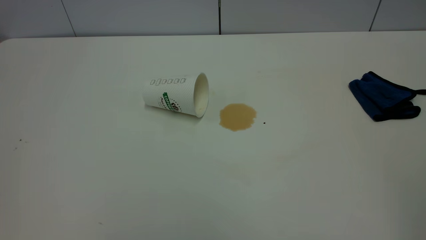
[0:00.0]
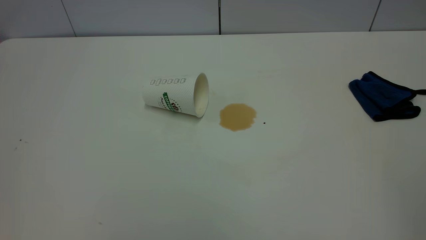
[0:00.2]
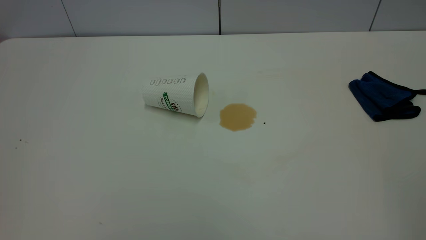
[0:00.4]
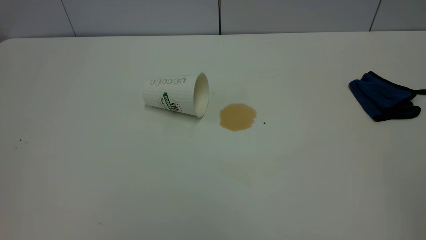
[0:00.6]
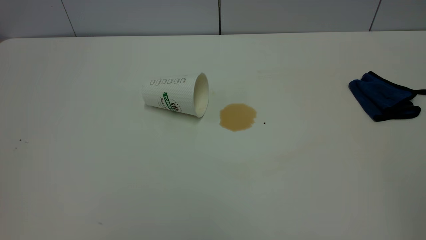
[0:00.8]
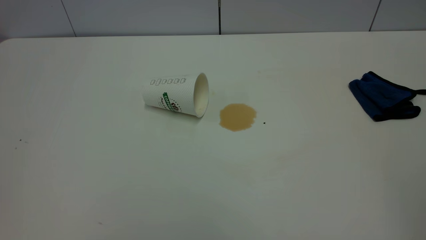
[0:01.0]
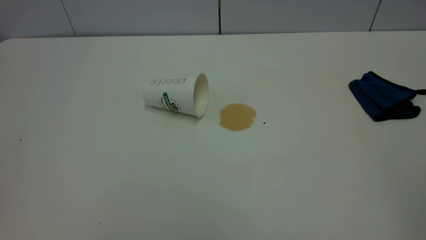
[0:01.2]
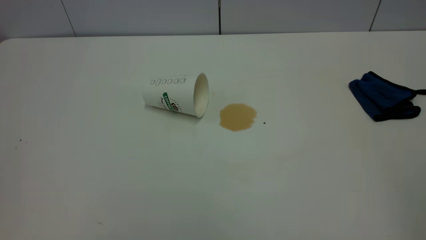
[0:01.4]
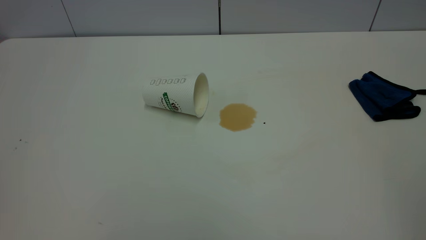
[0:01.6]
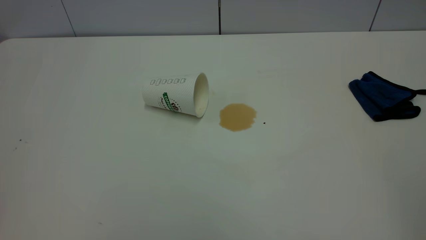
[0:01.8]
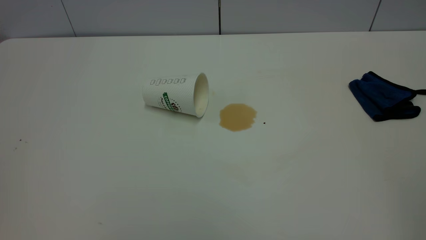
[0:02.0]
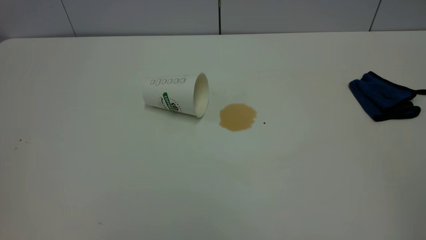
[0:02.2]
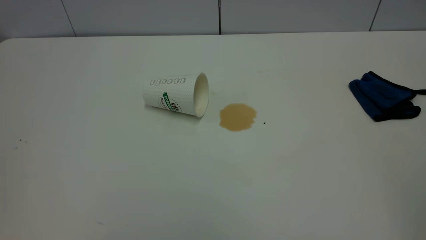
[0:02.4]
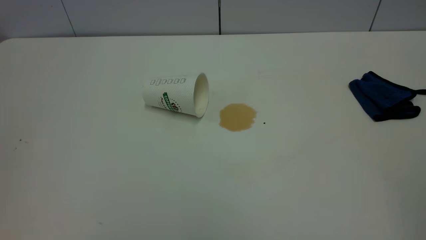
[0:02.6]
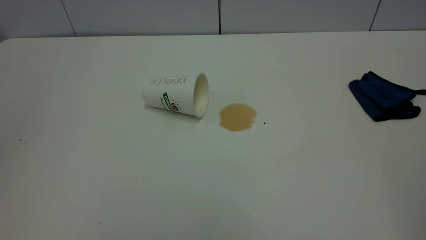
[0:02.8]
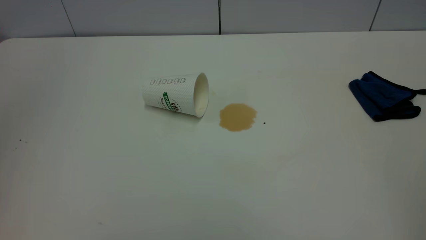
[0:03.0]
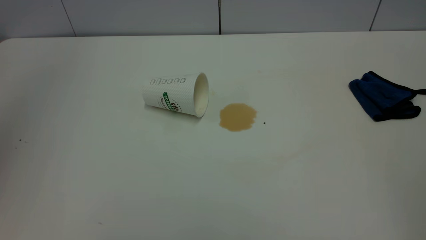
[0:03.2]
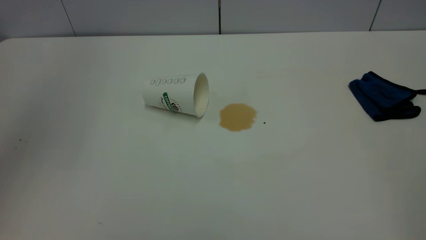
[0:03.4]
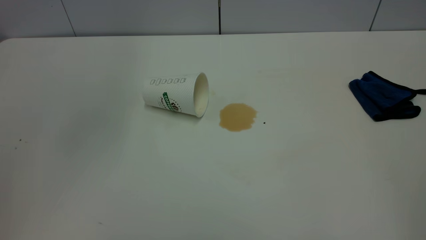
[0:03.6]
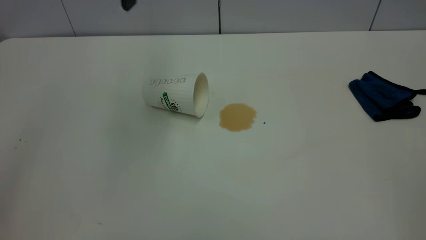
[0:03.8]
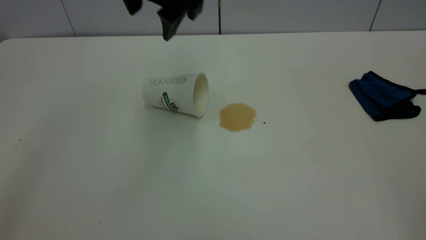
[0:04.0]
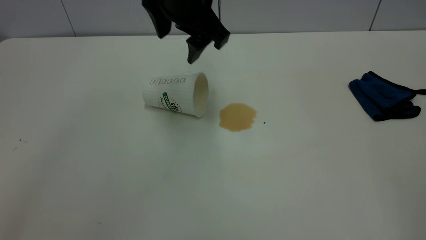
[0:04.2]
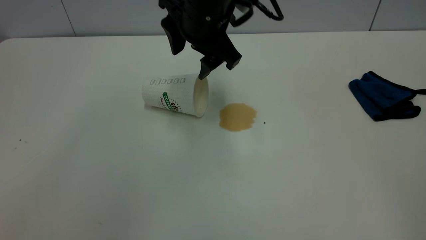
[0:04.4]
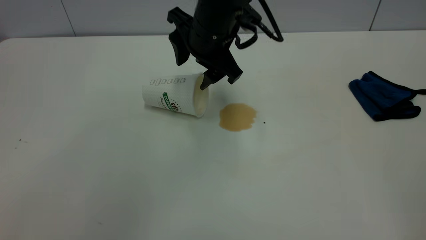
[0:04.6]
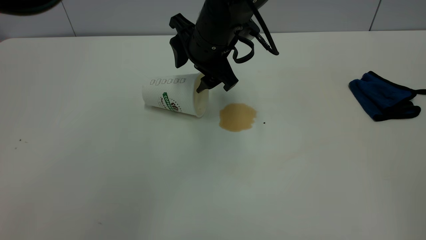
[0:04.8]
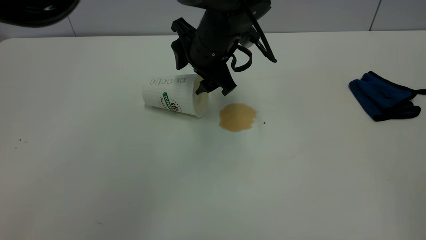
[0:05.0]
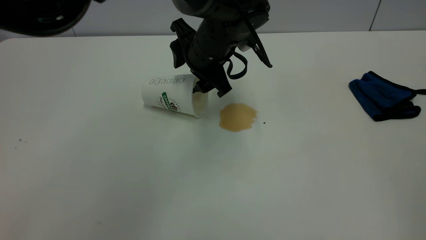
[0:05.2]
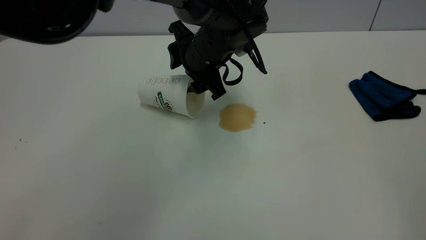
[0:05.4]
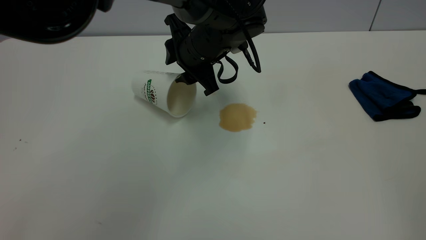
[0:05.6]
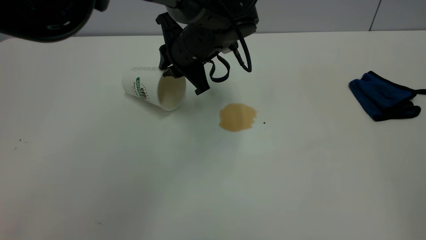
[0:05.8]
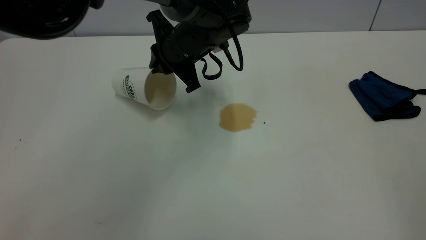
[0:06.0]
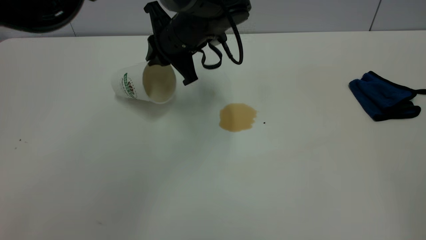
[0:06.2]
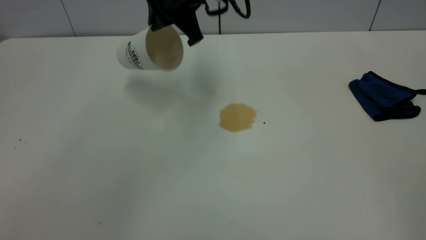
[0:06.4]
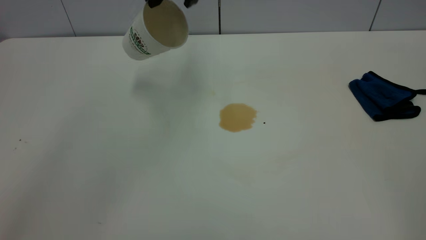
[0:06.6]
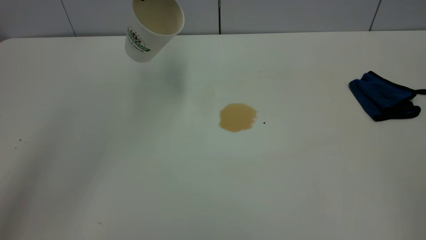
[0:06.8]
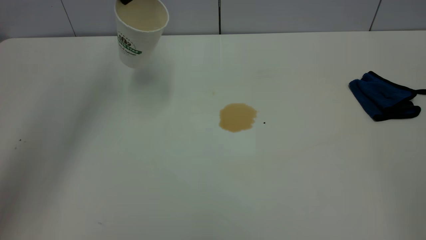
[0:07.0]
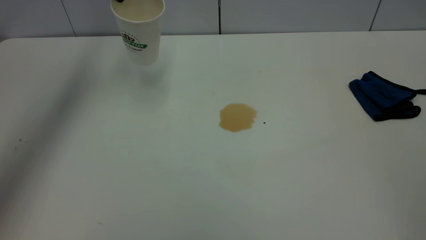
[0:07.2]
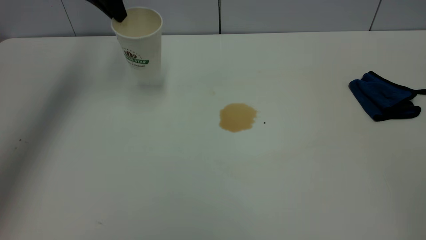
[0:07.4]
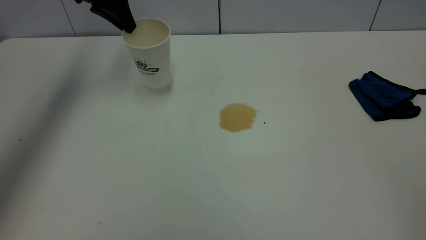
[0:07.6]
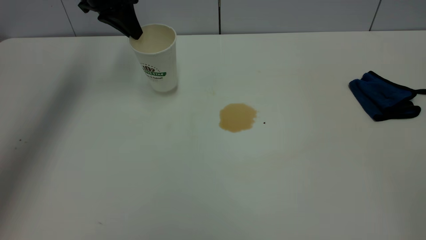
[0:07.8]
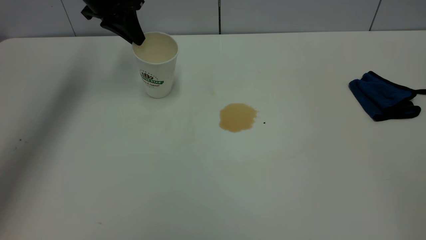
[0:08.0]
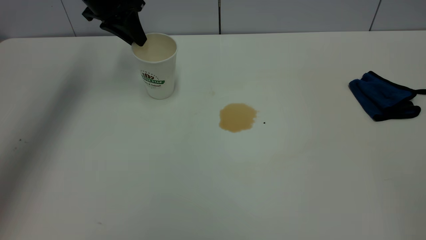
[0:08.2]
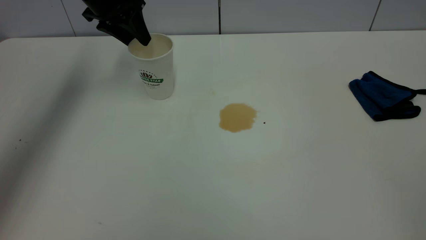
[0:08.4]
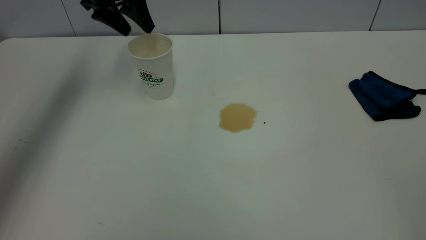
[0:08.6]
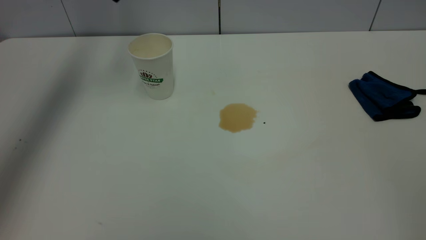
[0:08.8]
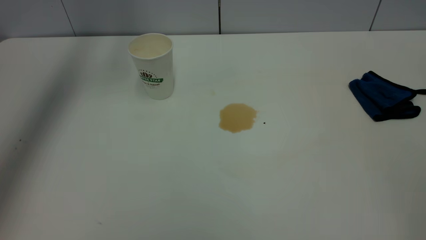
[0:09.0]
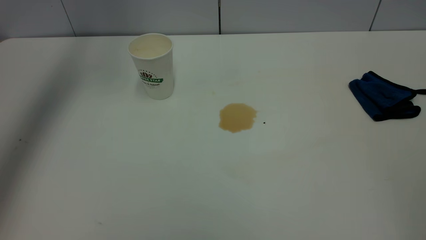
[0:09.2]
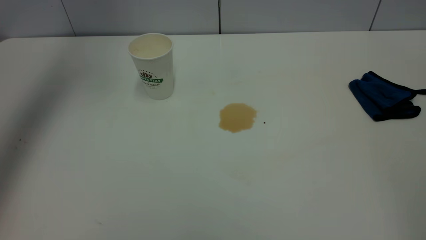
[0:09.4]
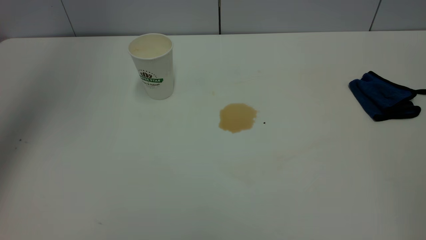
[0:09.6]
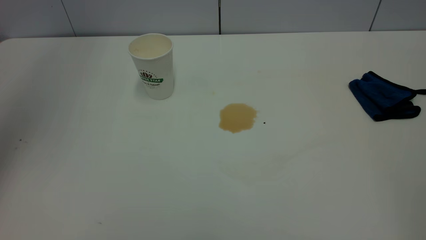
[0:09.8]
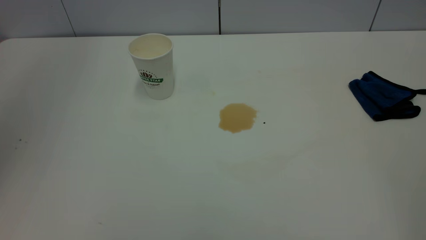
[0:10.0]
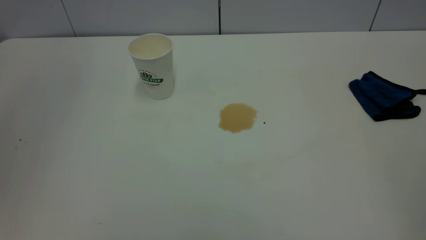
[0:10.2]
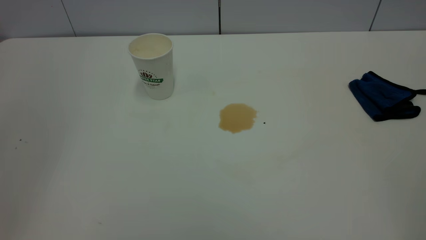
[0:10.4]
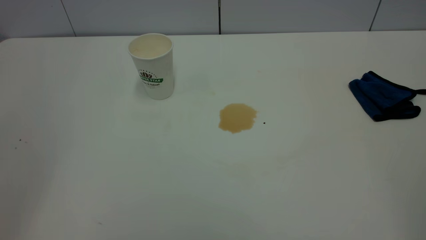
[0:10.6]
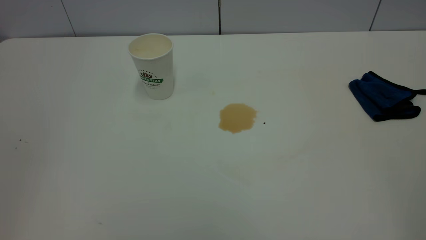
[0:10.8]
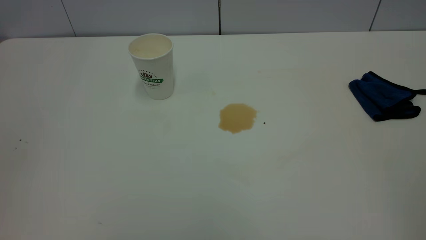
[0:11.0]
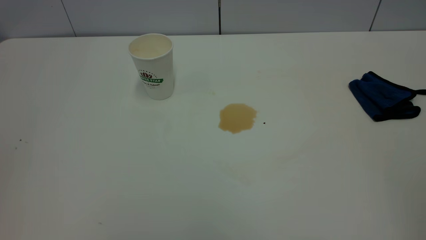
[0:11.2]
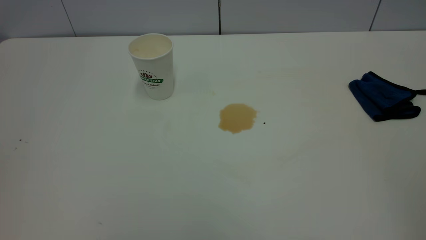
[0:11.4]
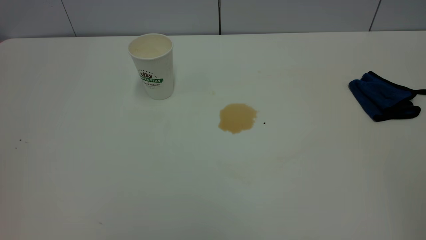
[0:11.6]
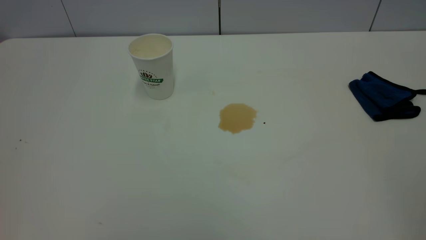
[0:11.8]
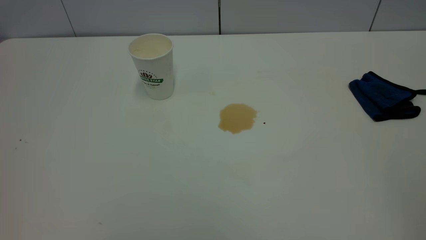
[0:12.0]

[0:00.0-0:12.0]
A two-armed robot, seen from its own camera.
Task of the whole recording: the left gripper pick up the fallen cup and place it upright, the right gripper grasp the blue rag and wipe the tea stain on the table, the right gripper put the blue rag back in its original position.
Step, 0:00.0 to 0:08.4: Stand the paper cup upright.
0:00.0 to 0:01.6: The two grippers keep their place.
0:03.0 to 0:04.4: The left gripper heads to the right, downward and forward, covering about 40 cm.
0:04.4 to 0:06.0: The left gripper shifts approximately 5 cm downward, and closes its fingers.
0:06.0 to 0:07.6: The left gripper is displaced to the left, upward and forward by some 25 cm.
0:07.6 to 0:09.0: The left gripper moves upward, about 10 cm, and opens up.
0:09.0 to 0:10.4: The left gripper travels backward by about 35 cm, and closes its fingers.

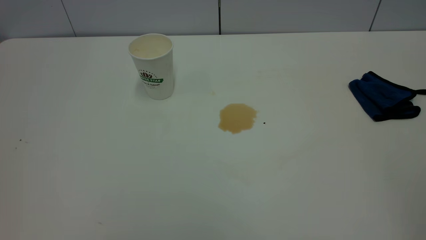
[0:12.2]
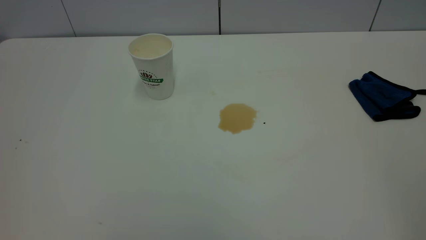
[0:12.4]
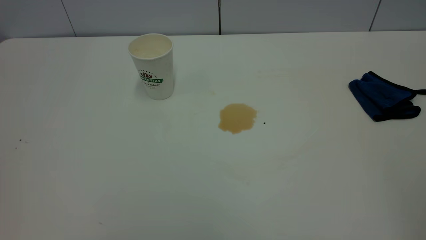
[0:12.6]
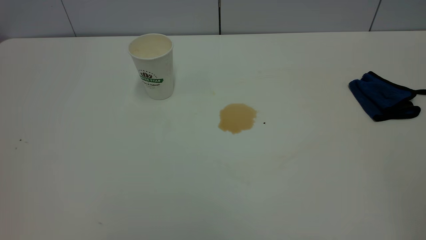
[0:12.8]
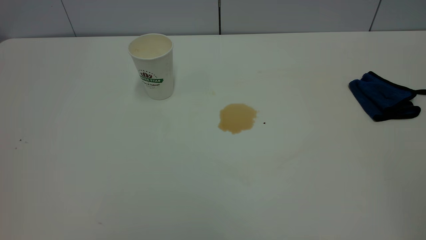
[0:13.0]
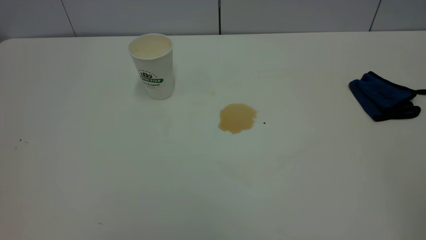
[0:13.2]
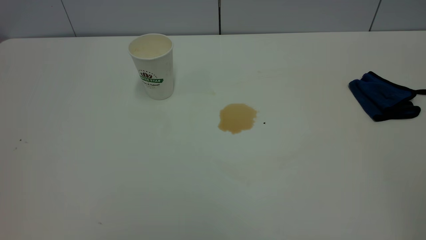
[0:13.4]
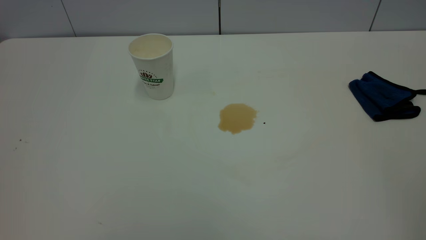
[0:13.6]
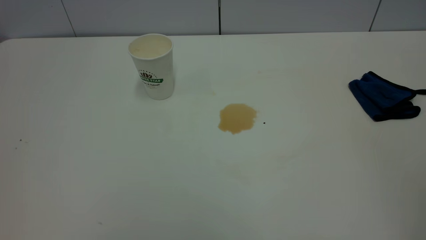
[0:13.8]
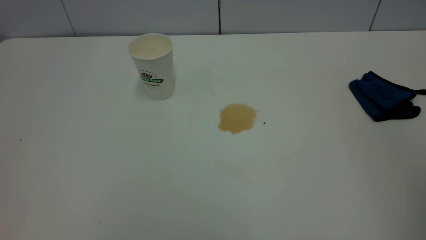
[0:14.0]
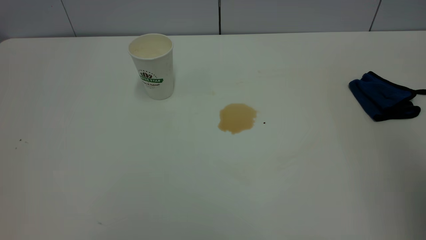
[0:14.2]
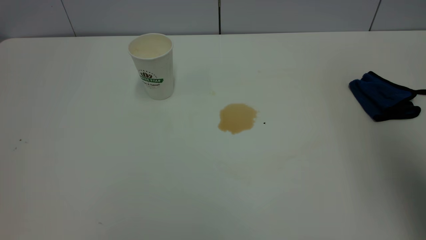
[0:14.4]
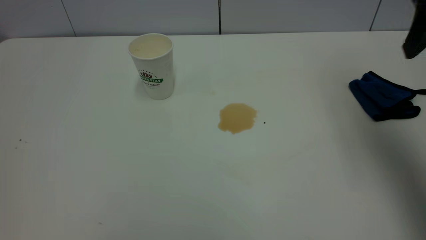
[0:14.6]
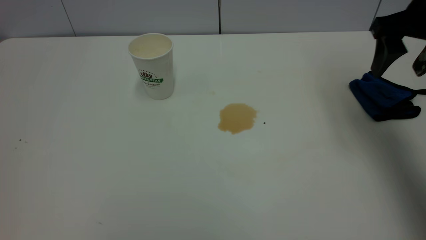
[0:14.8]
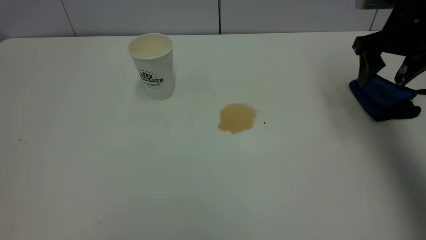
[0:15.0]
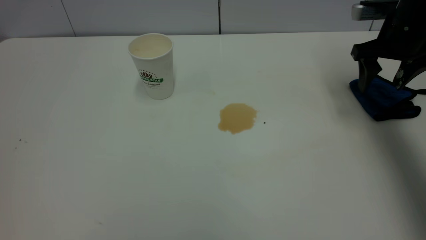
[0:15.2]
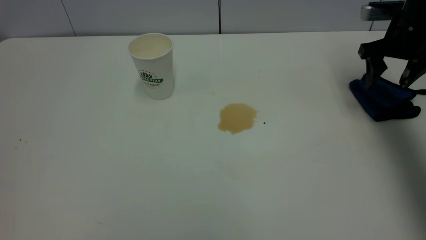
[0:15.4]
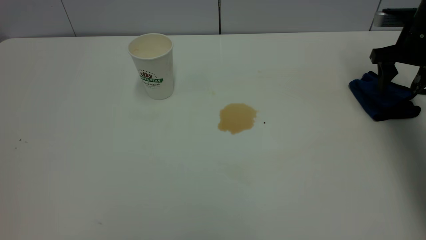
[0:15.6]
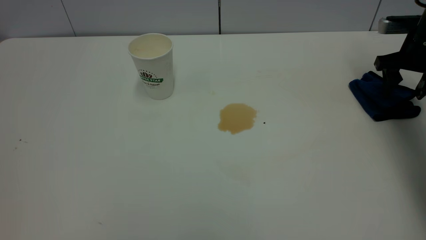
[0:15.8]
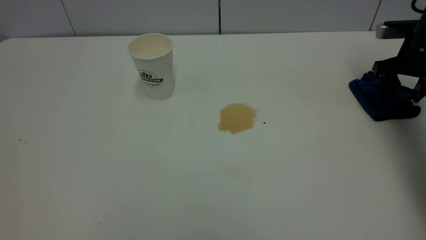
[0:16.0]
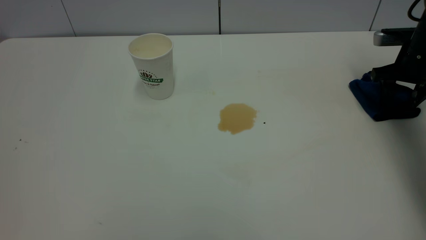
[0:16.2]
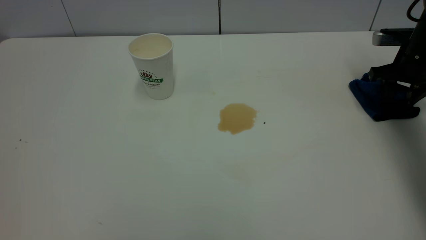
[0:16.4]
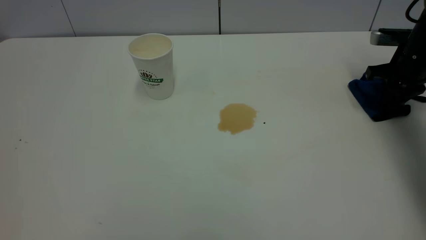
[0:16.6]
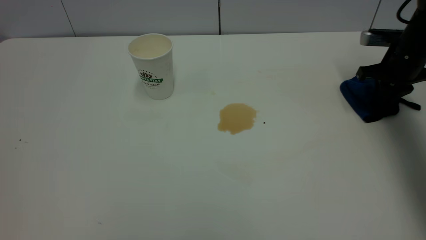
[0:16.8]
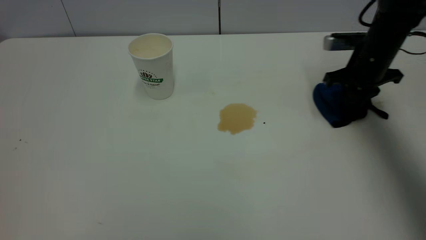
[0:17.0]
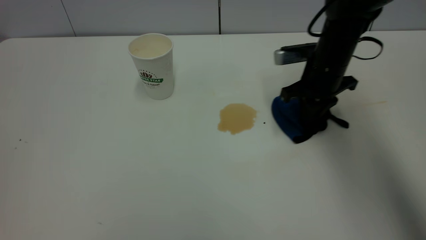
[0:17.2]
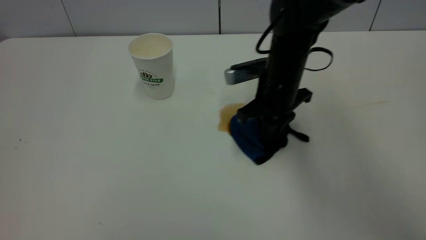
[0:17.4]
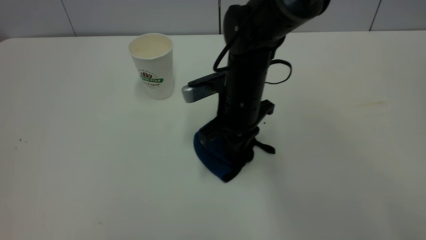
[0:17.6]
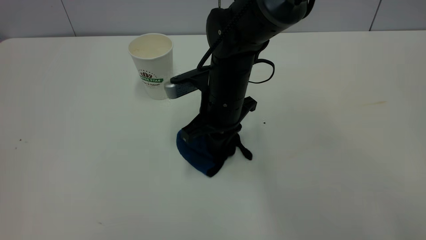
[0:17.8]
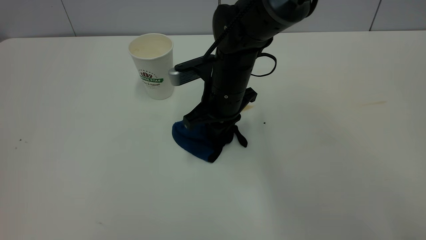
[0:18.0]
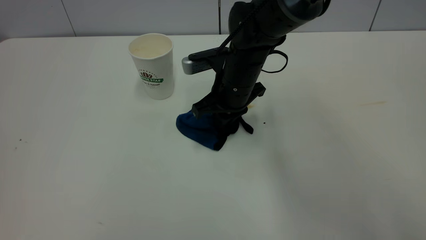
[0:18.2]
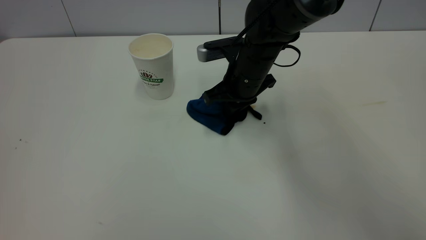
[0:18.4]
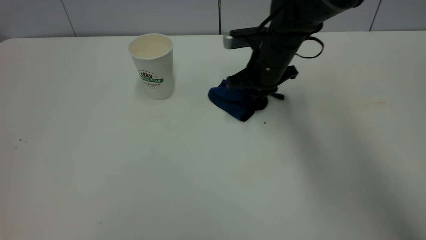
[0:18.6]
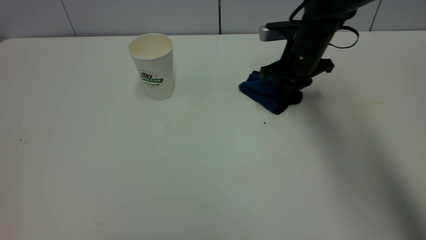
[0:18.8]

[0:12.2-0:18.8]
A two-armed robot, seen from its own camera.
Task of the whole recording: the left gripper pick up the fallen cup and place it upright, the right gripper grasp the blue rag and wipe the tea stain on the table, the right gripper put the blue rag back in its original position.
0:13.8 to 0:15.4: The right gripper heads forward and downward, covering about 50 cm.
0:15.4 to 0:17.2: The right gripper heads to the left, covering about 15 cm, and closes up.
0:17.2 to 0:18.8: The right gripper heads forward, covering about 5 cm, and reaches roughly 15 cm to the left, then returns.
